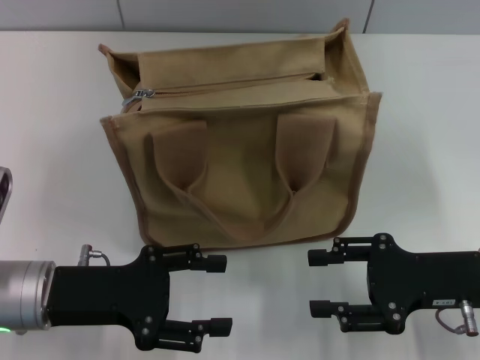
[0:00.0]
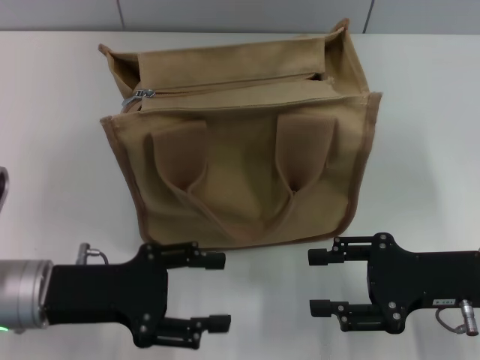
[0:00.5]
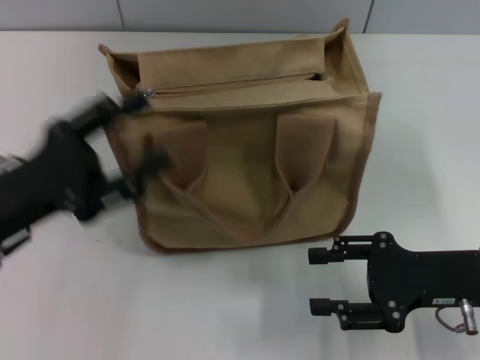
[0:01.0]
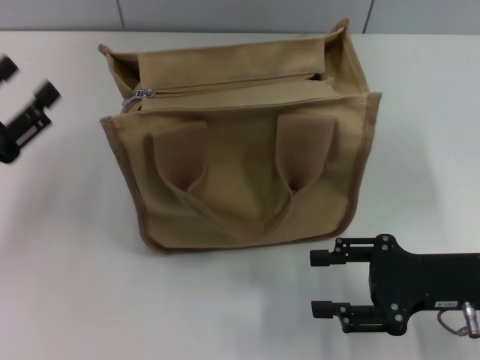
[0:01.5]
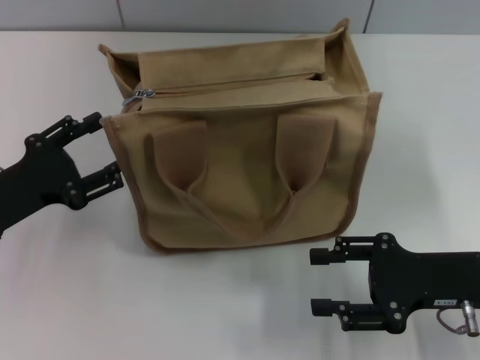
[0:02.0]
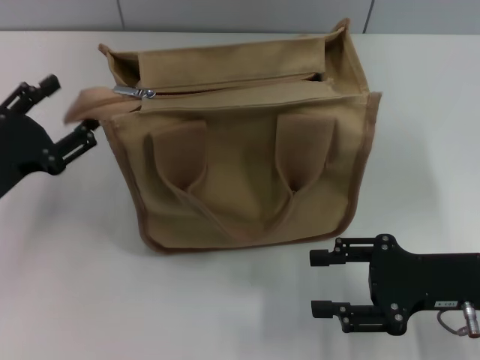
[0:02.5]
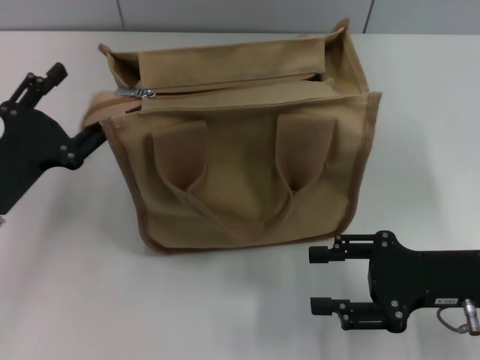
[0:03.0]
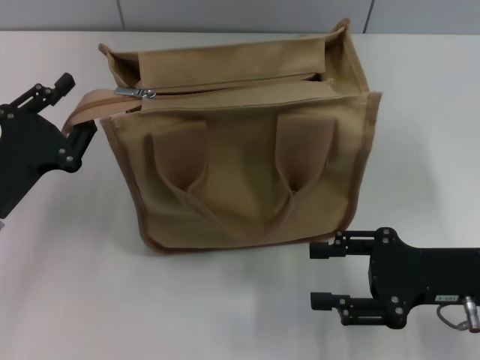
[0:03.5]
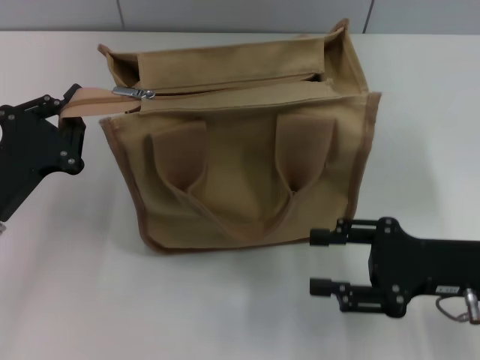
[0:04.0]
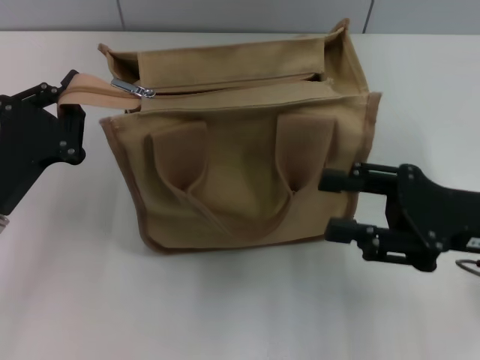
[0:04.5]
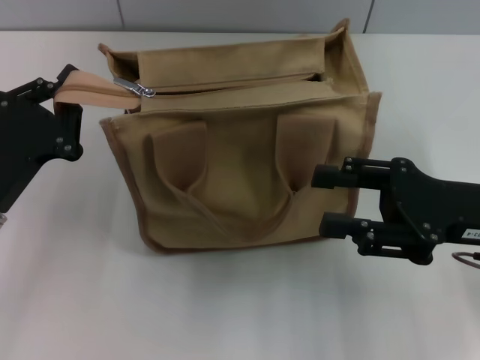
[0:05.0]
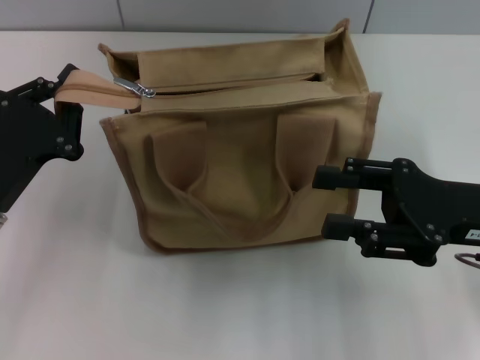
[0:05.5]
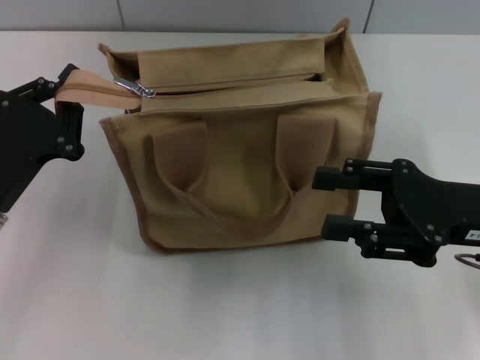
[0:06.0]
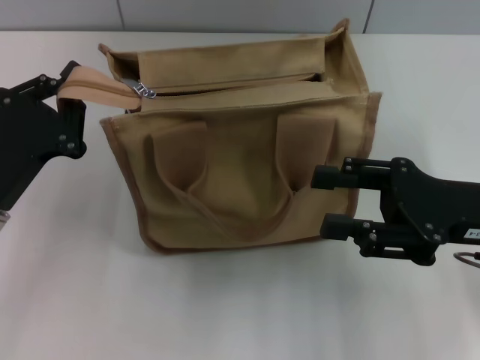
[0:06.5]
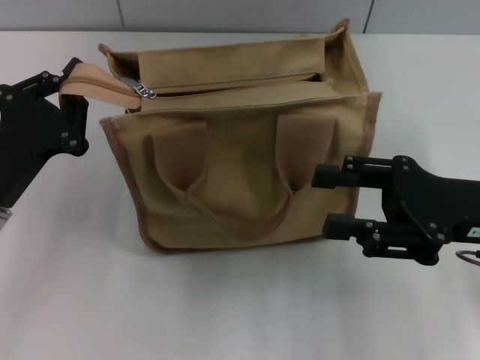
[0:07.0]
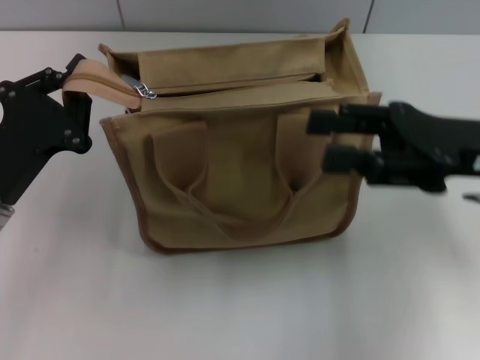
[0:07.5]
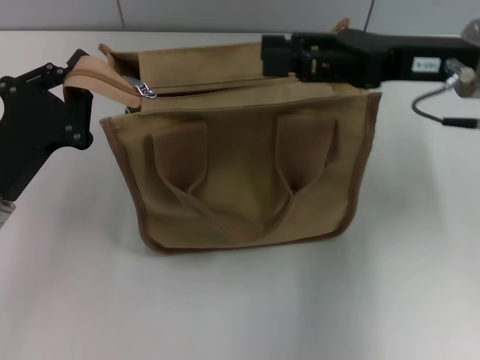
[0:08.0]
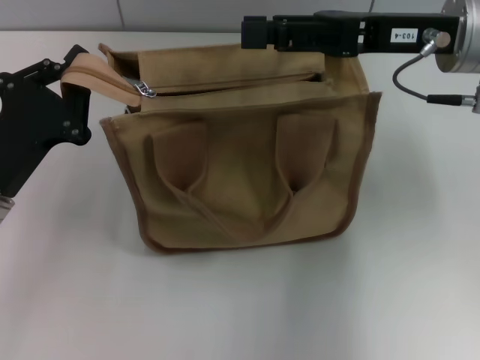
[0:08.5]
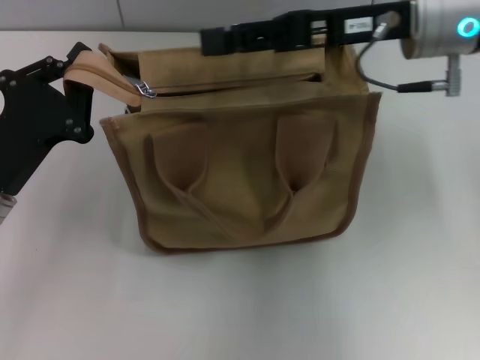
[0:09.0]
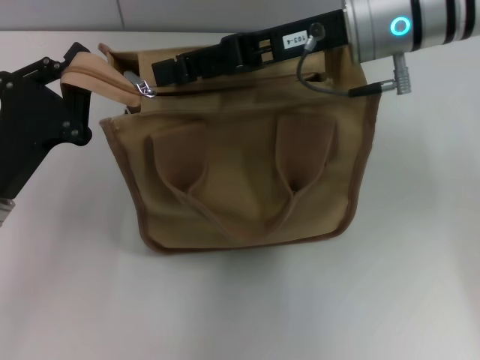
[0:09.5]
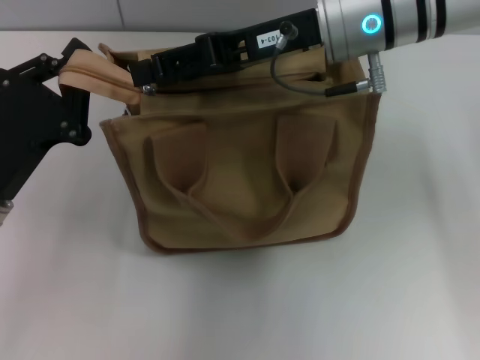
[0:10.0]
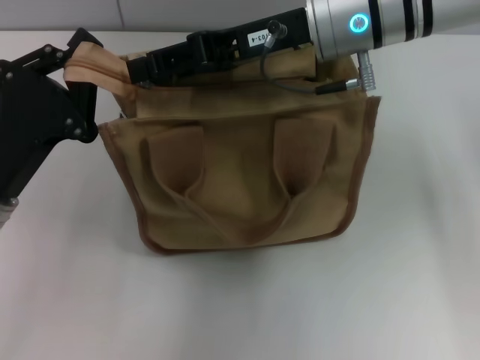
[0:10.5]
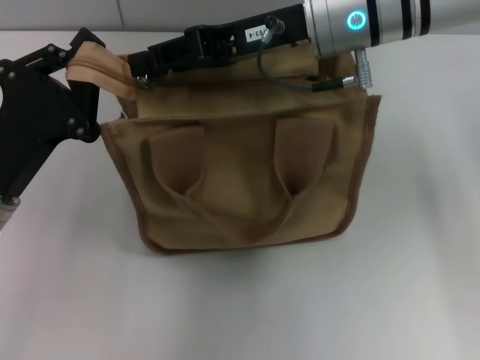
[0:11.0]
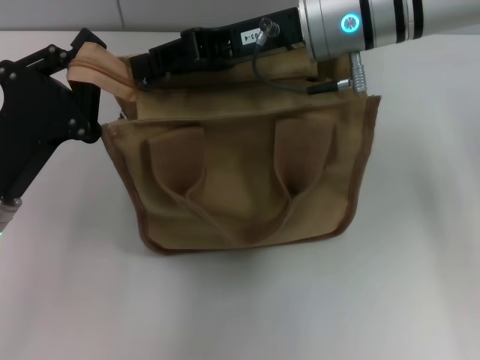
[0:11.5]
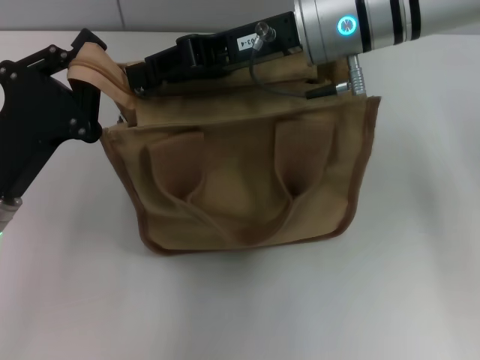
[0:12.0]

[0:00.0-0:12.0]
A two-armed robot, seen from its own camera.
0:00.0 to 0:02.0: The left gripper moves to the left, roughly 5 cm.
0:02.0 to 0:04.0: The left gripper closes up.
0:04.0 to 0:06.0: The right gripper changes place by some 5 cm.
0:06.0 to 0:08.0: The right gripper goes approximately 10 cm forward and upward.
0:08.0 to 0:10.0: The right gripper is displaced to the left by roughly 10 cm.
0:10.0 to 0:12.0: The right gripper closes.

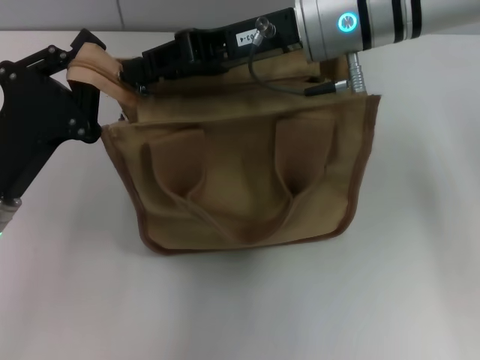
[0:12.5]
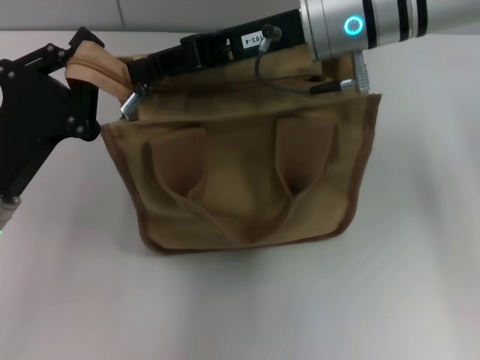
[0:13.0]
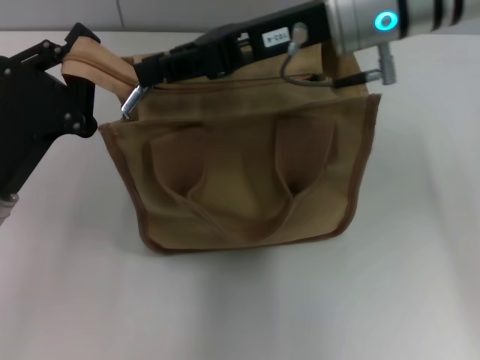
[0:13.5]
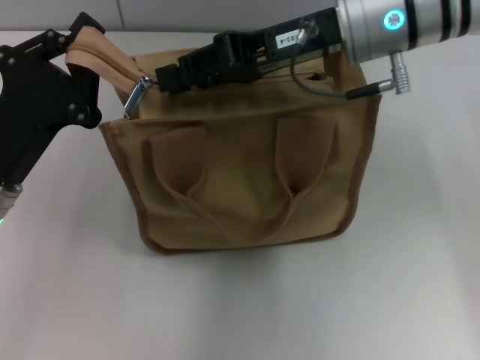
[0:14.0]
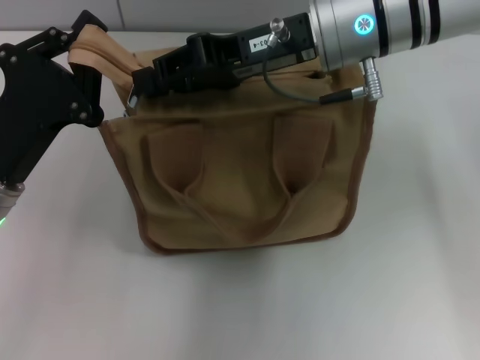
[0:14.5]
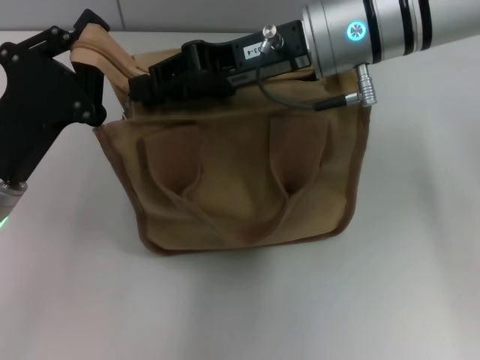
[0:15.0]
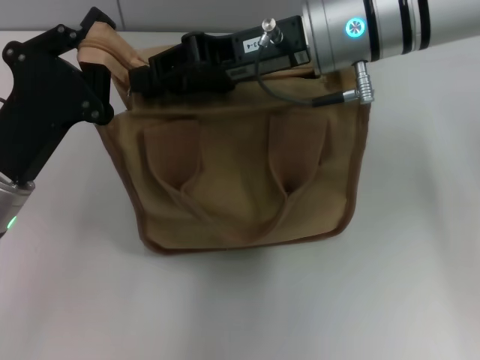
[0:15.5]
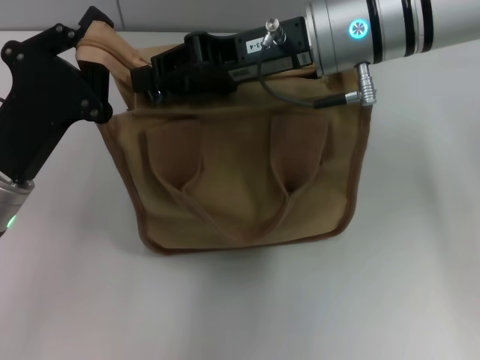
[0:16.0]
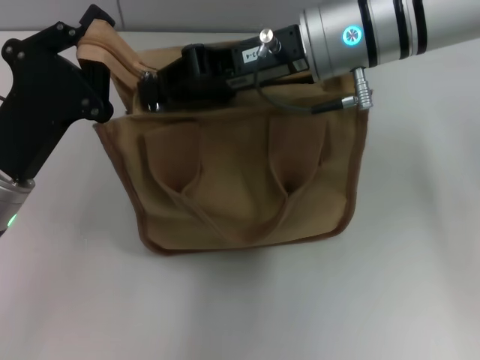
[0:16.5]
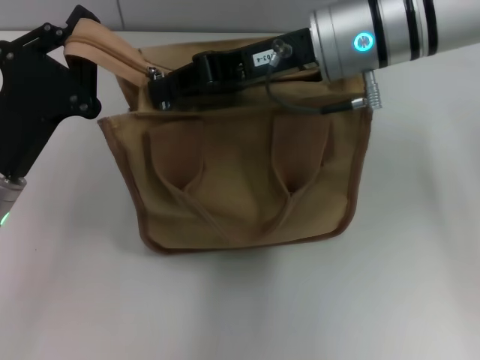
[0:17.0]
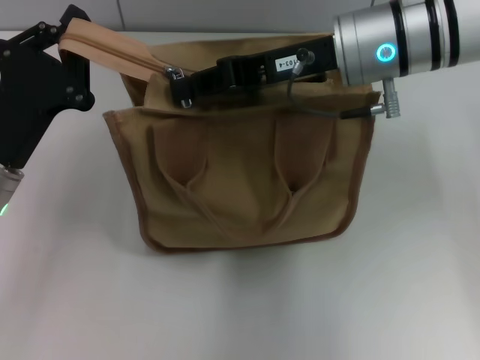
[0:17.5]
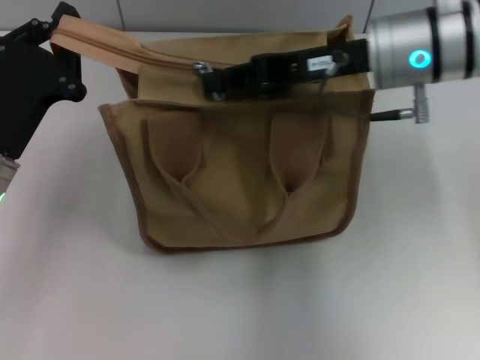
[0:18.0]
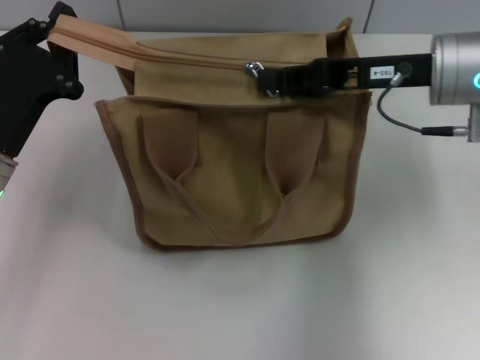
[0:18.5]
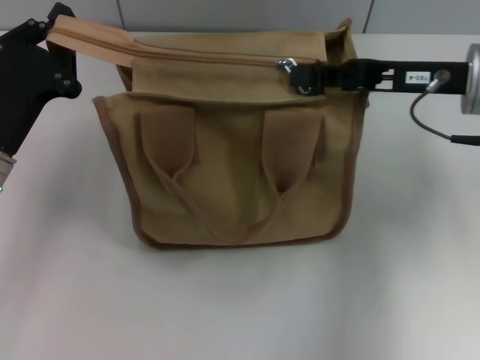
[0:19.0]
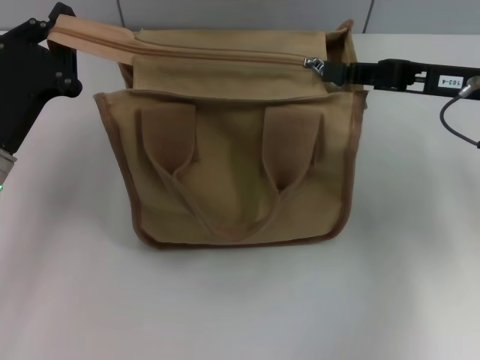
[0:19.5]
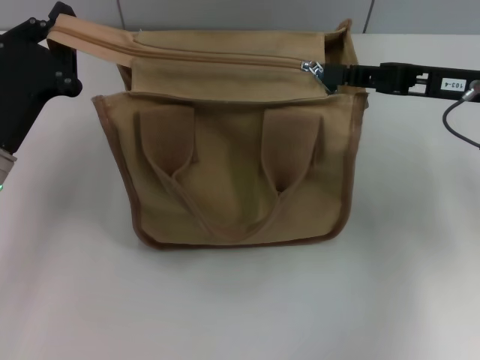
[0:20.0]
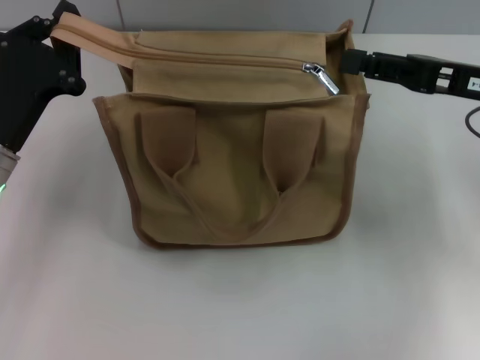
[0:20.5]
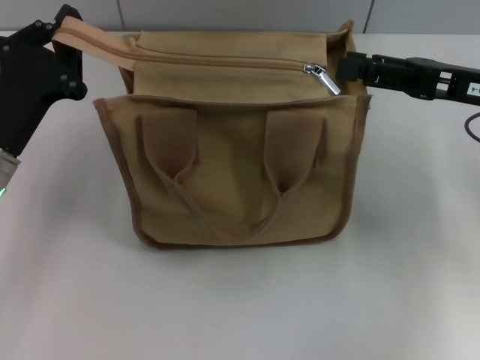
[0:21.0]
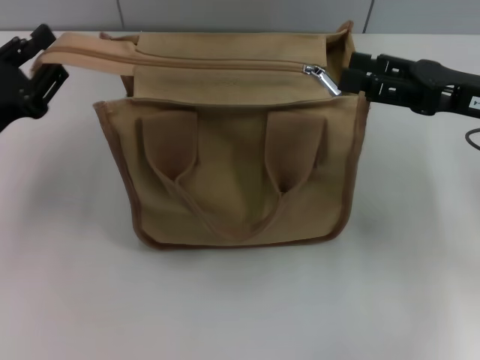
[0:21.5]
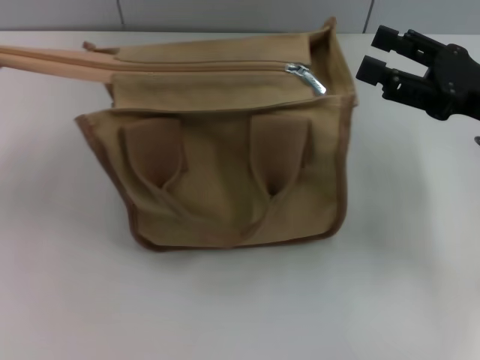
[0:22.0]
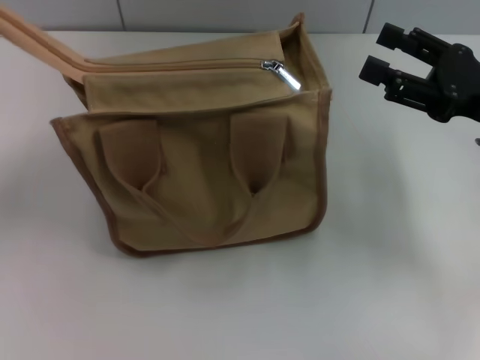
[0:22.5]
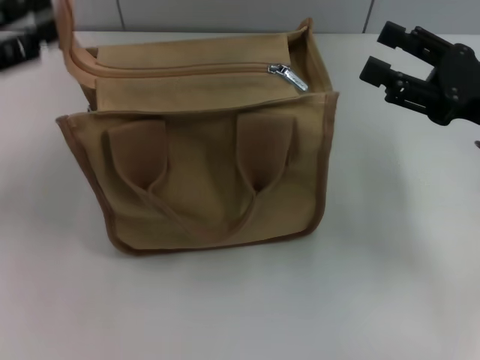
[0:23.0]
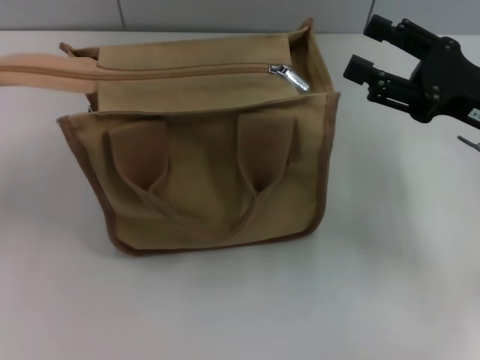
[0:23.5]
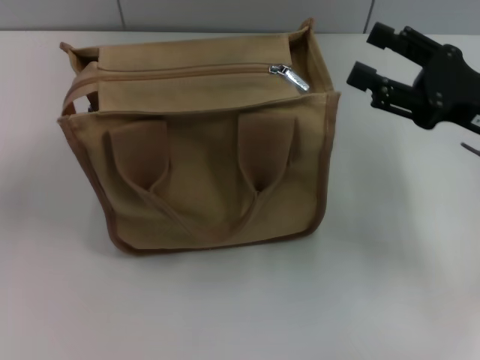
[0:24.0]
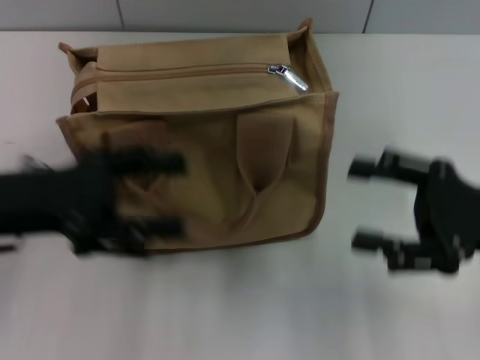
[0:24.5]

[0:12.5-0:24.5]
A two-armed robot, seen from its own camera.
Step, 0:12.5 to 0:20.0: Pull up the zipper with your right hand.
Step, 0:20.5 to 0:23.5: Grab the zipper with your left hand.
0:12.5 to 0:14.5: The grippers stay close to where they were, moving slightly.
0:14.5 to 0:16.5: The two grippers keep their place.
0:16.5 to 0:18.5: The right gripper is displaced to the right by approximately 10 cm.
0:18.5 to 0:20.5: The right gripper shifts approximately 10 cm to the right, and opens up.
0:20.5 to 0:22.5: The left gripper goes about 15 cm to the left and upward, and opens up. The right gripper opens up.
0:22.5 to 0:24.5: The right gripper moves backward, approximately 5 cm; the left gripper shifts approximately 10 cm to the right.

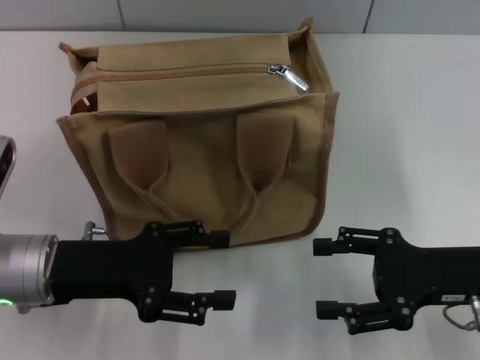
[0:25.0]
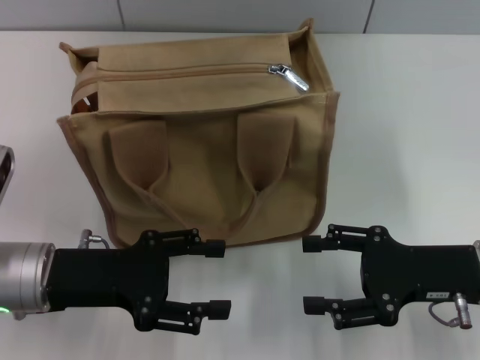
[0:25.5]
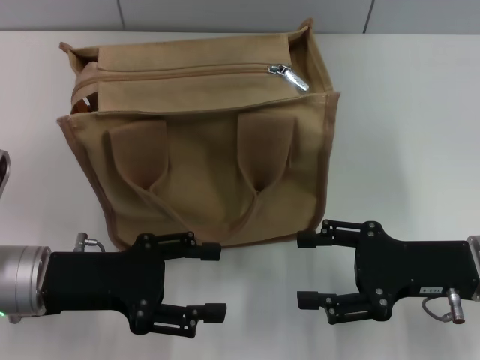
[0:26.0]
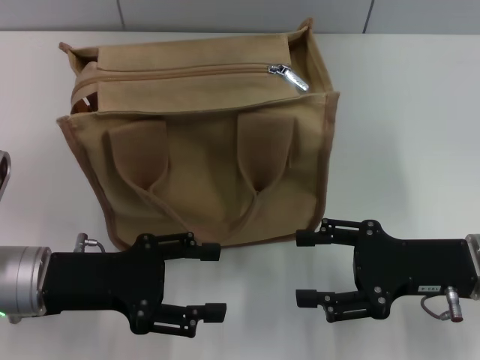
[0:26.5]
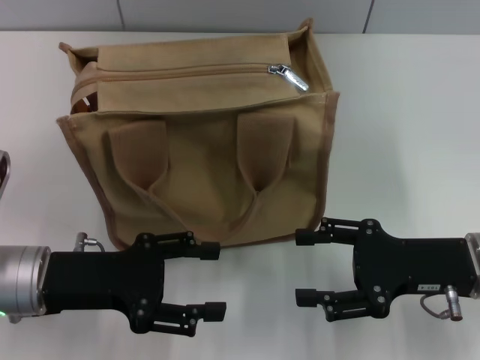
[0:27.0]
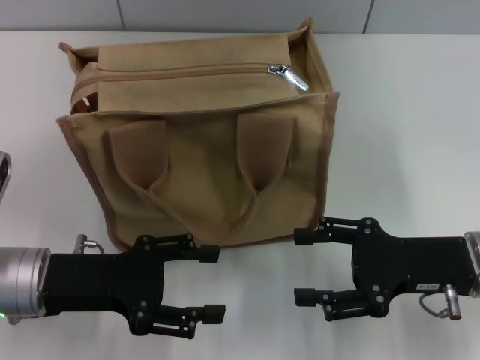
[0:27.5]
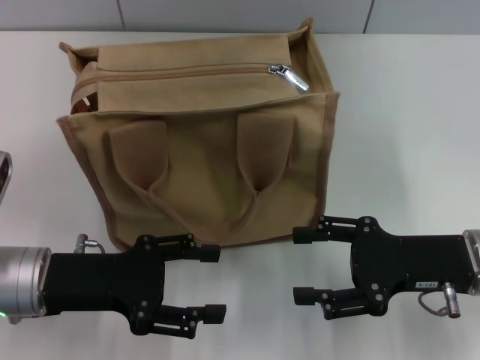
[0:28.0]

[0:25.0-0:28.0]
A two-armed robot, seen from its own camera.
0:25.0 to 0:26.5: The grippers stay close to where they were, moving slightly.
0:26.5 to 0:28.0: Both grippers stay about where they are.
